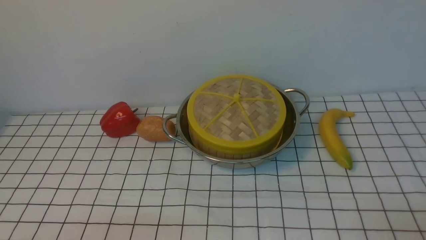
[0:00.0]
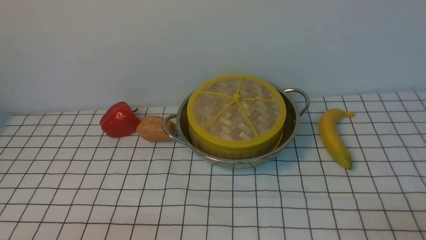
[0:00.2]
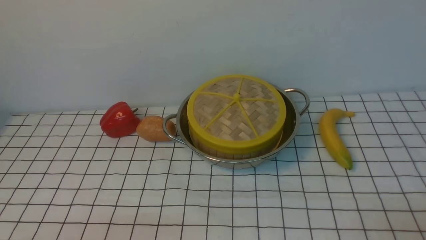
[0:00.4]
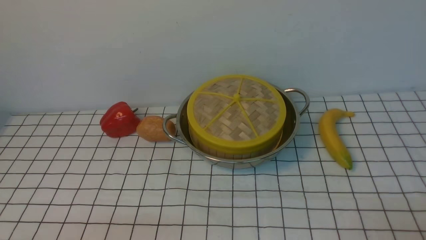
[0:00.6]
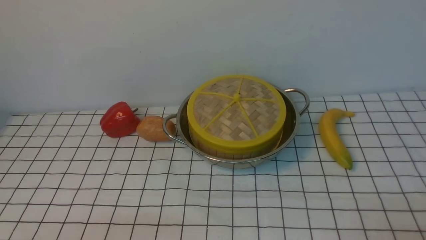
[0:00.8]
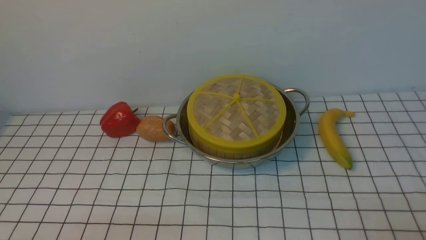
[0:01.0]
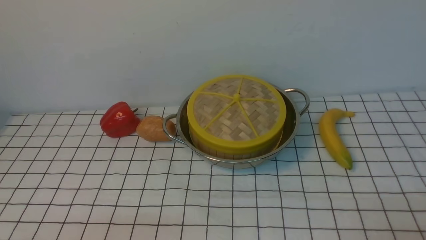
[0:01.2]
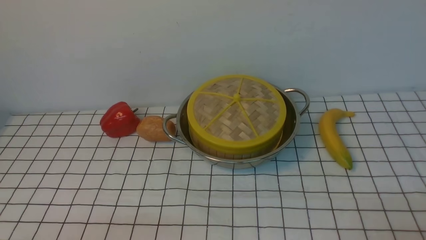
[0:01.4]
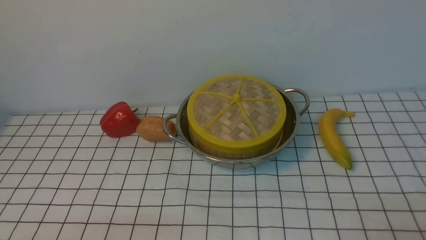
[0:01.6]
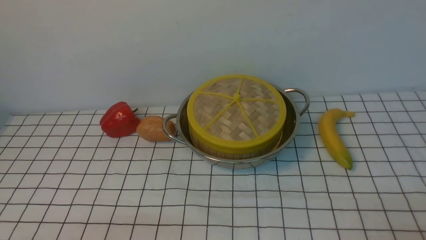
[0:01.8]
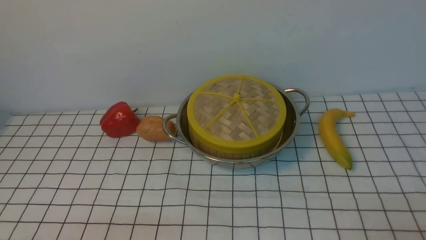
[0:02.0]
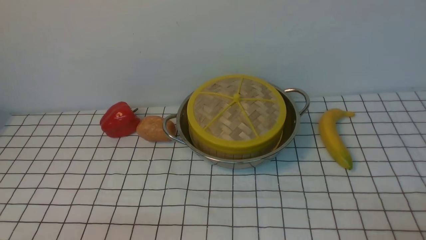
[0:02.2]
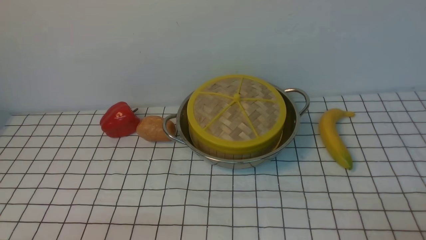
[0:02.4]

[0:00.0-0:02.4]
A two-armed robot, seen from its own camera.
Task of the whole recording: place the steamer in the pot on the white tablecloth, and put the lid on the steamer.
0:01.2 to 0:02.4: Both grippers stay put.

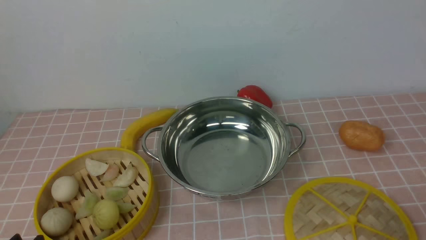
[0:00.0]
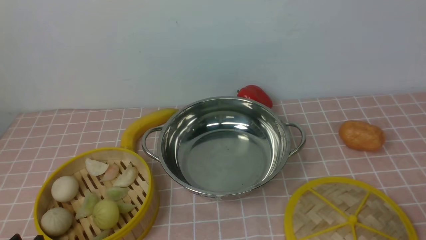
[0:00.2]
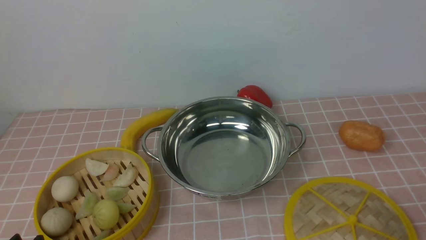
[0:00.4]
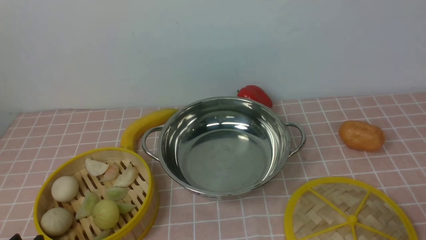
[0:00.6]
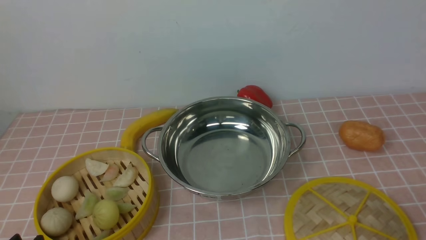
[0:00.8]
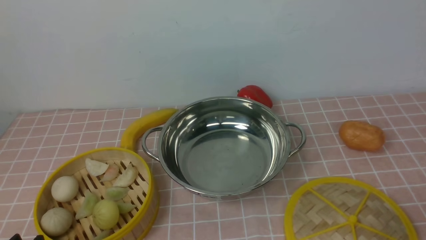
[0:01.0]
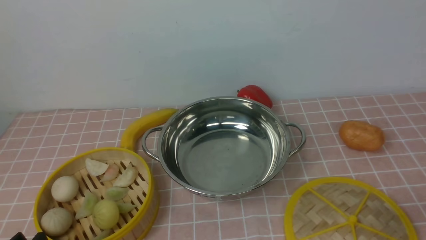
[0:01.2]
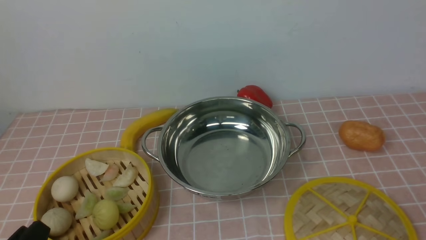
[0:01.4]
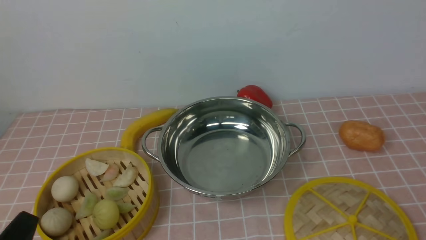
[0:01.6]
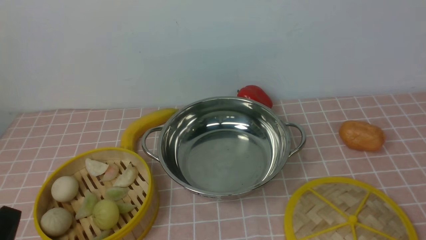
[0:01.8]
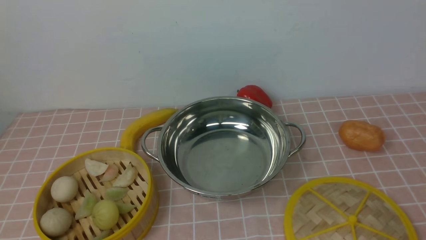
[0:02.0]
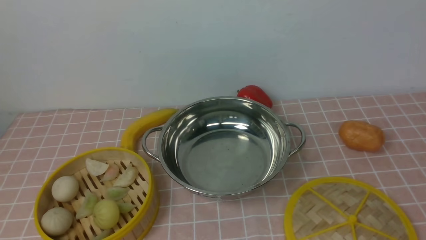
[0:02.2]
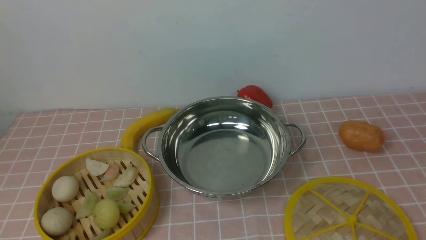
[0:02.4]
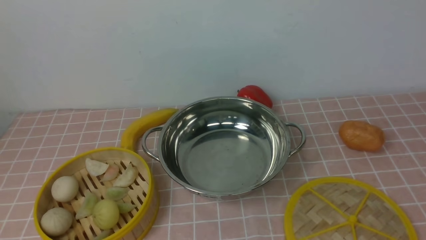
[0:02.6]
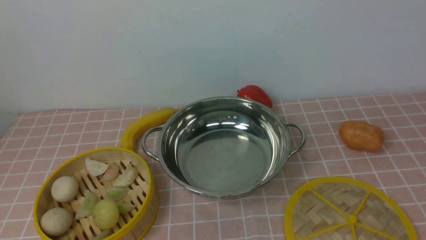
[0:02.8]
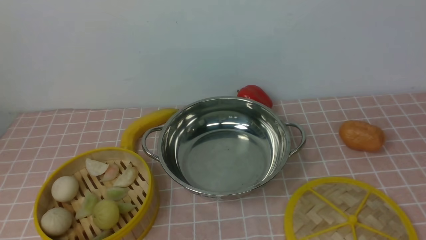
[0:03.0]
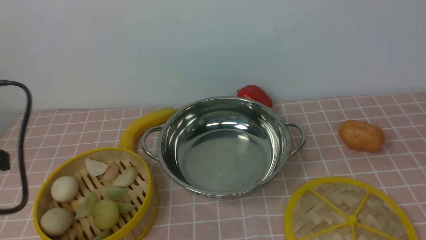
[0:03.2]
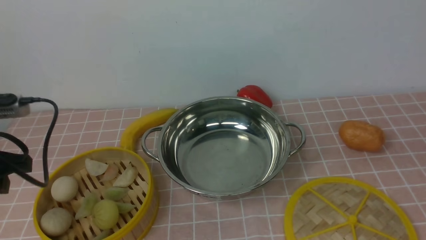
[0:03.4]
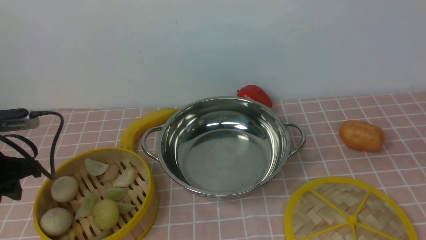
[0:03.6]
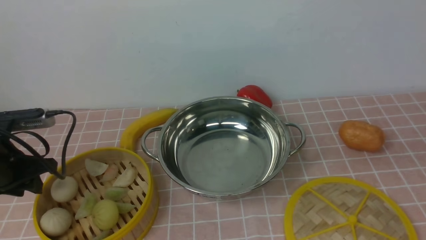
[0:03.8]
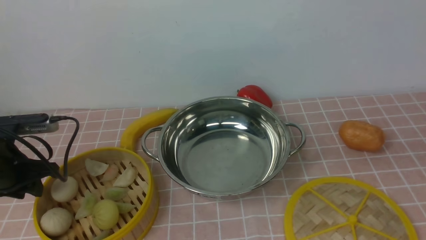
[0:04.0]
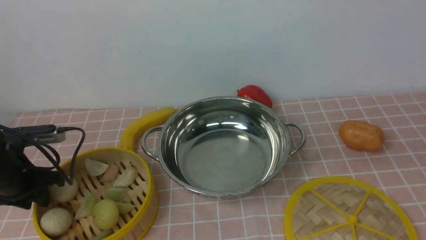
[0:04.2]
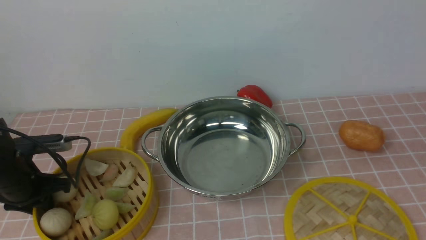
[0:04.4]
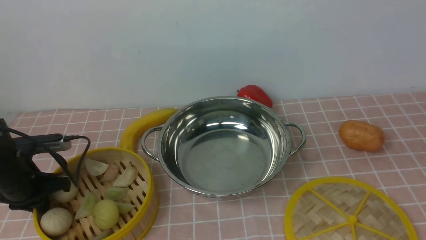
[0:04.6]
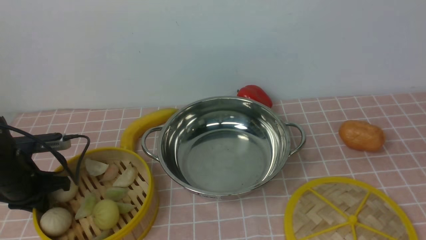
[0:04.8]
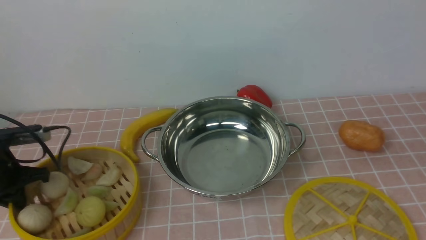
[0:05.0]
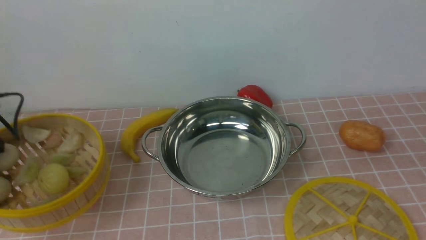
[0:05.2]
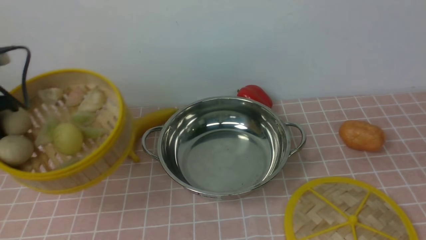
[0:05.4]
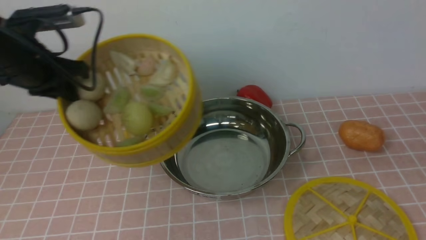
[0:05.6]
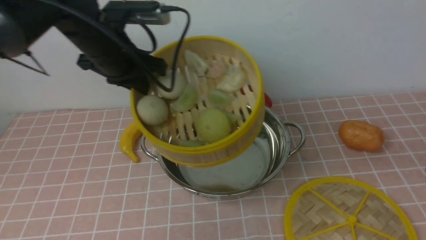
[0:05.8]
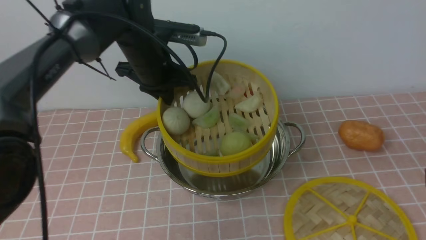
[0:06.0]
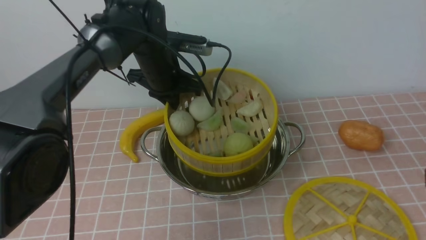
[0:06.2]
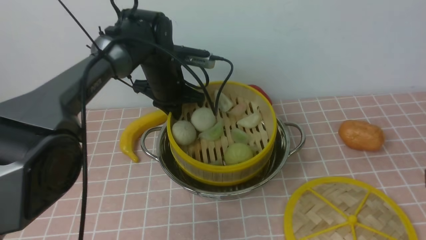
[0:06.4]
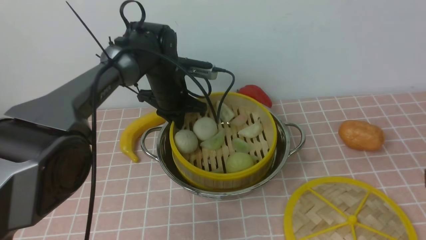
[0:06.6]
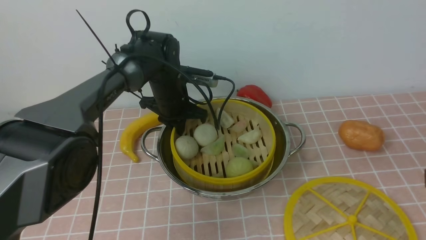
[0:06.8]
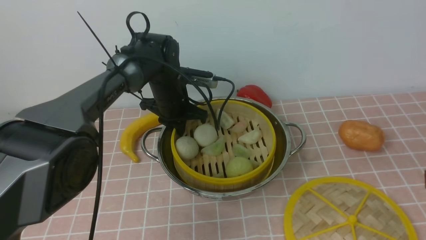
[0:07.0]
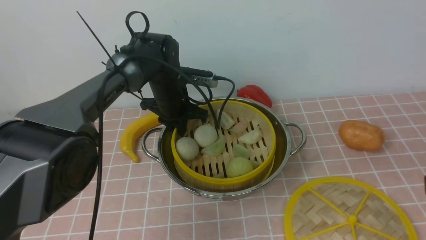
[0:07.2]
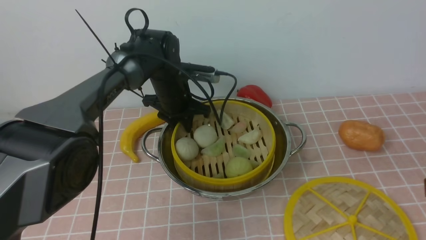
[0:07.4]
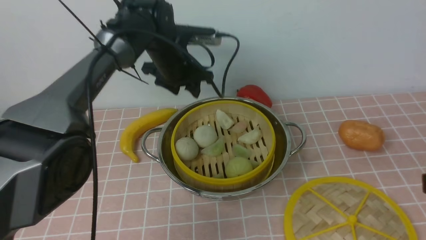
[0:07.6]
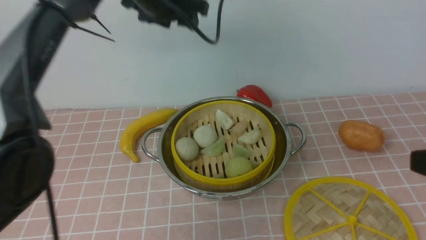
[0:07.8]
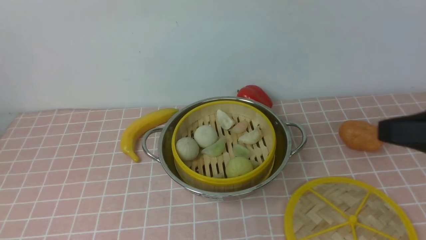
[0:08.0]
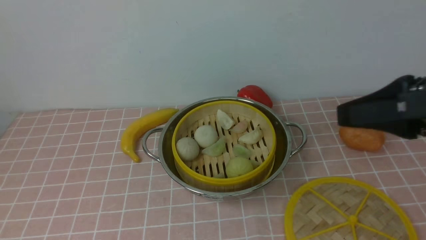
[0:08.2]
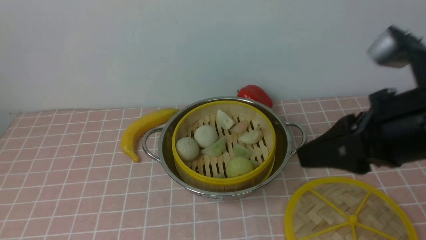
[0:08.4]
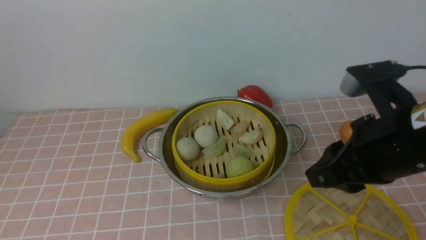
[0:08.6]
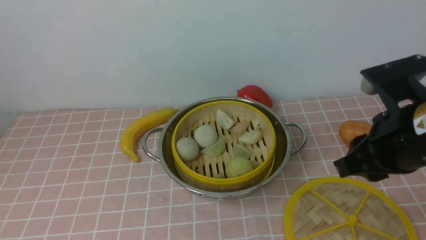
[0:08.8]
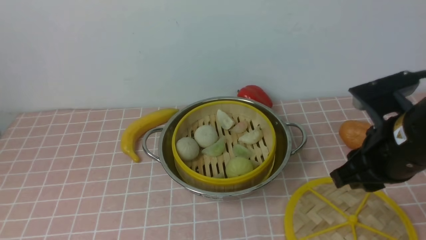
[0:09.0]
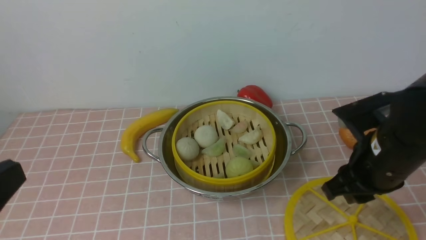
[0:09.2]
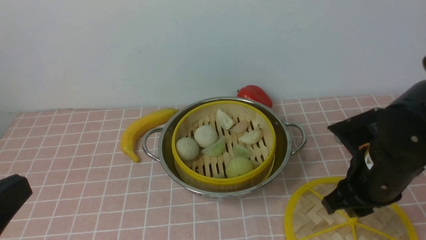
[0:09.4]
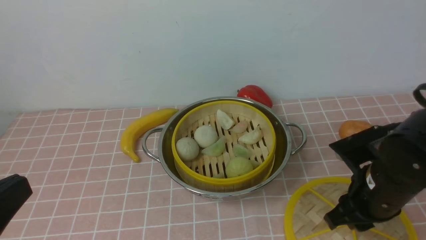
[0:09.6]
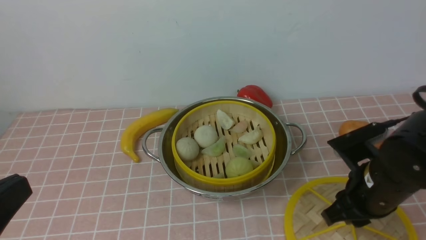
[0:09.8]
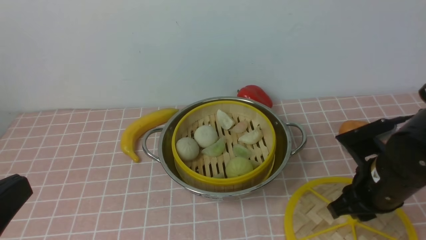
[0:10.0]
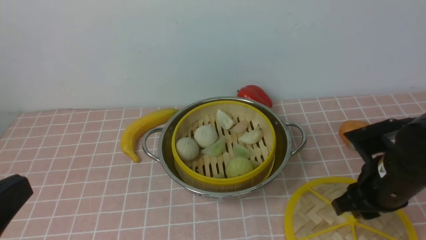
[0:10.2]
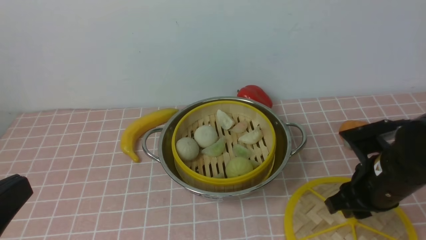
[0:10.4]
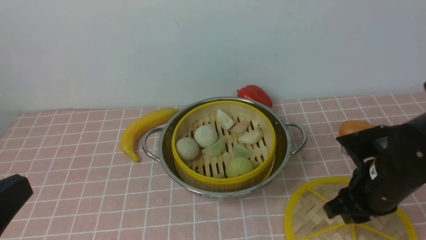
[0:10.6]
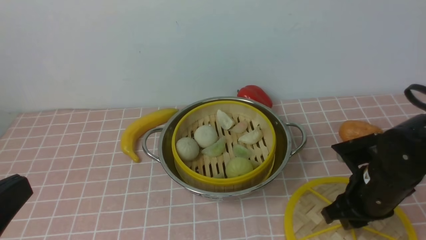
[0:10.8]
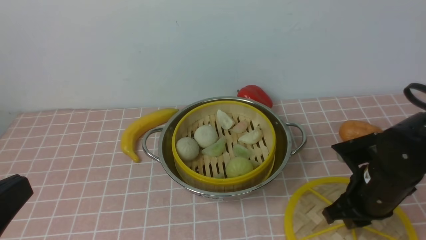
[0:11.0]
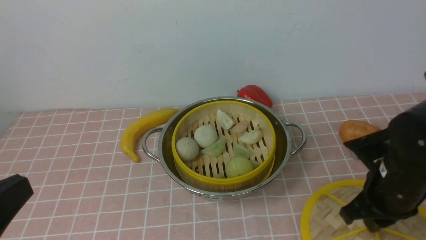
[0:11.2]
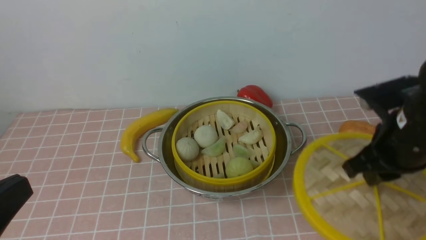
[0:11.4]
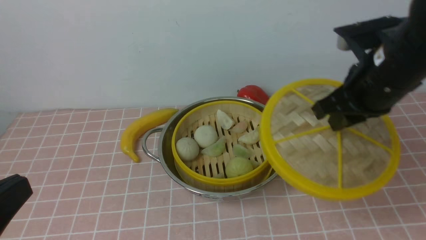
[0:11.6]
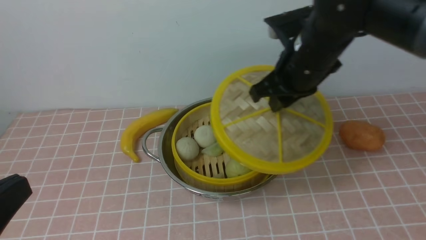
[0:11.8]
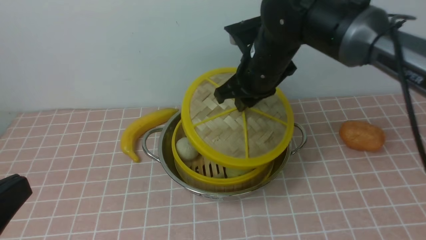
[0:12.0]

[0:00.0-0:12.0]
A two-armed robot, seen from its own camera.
Task of the whole recording: place the steamer in the pot on the pink tablecloth, and put the lid on the steamer.
Step, 0:00.0 to 0:05.0: use the left arm to lift the steamer closest to it.
Step, 0:05.2 to 0:07.4: use the left arm to put the steamer into the iron steamer pot in the middle.
Step, 0:07.6 to 0:11.2: use the right arm to lift the lid of the steamer.
0:01.6 to 0:03.0: The left gripper is displaced upward by approximately 20 cm.
0:03.0 to 0:04.4: The left gripper shifts roughly 30 cm downward and forward.
0:04.4 to 0:06.0: The left gripper shifts roughly 25 cm to the right, upward and forward, and closes.
0:06.0 to 0:07.6: The left gripper moves forward and downward, about 10 cm, and opens.
0:07.6 to 0:09.0: The left gripper goes roughly 50 cm backward and upward, and closes up. The right gripper heads forward and to the left, covering approximately 15 cm.
0:09.0 to 0:10.4: Both grippers move downward, approximately 10 cm.
0:10.4 to 0:12.0: The right gripper travels forward, to the left and upward by approximately 20 cm, and closes up.

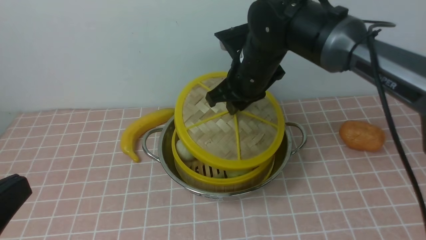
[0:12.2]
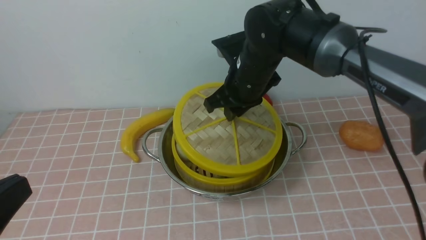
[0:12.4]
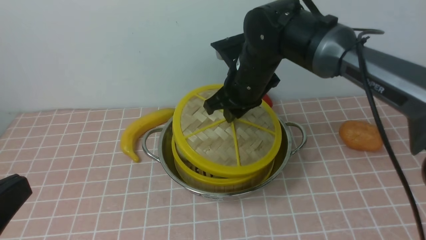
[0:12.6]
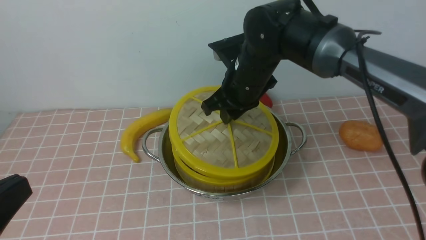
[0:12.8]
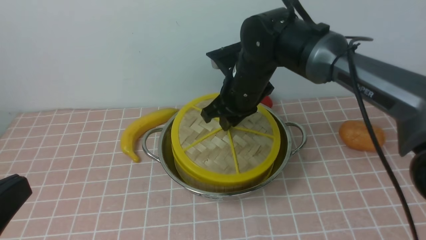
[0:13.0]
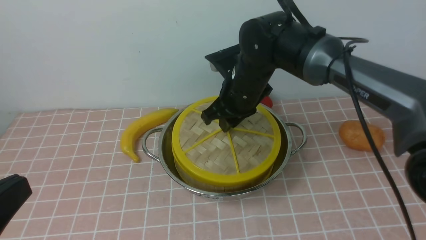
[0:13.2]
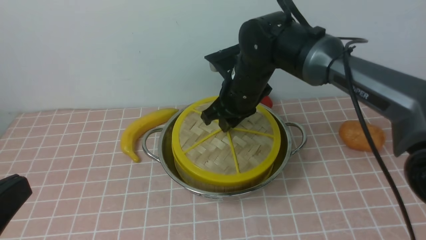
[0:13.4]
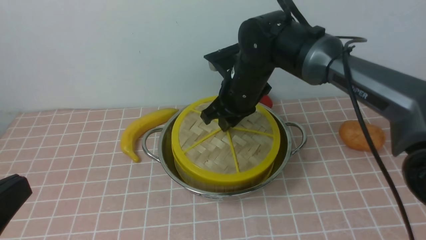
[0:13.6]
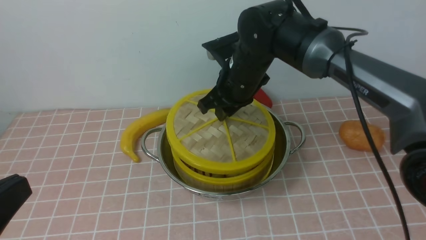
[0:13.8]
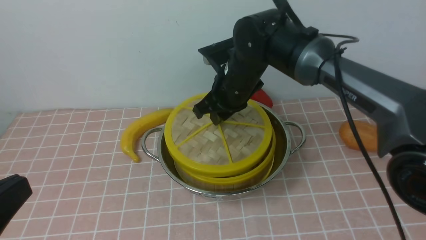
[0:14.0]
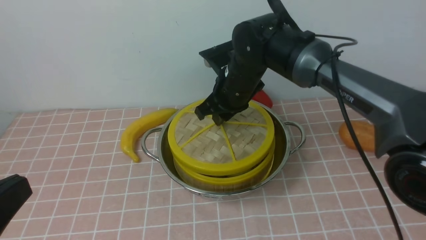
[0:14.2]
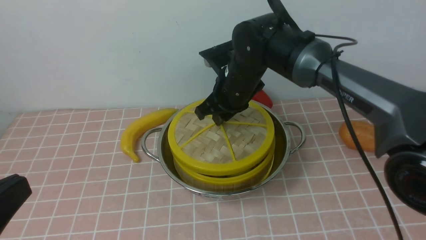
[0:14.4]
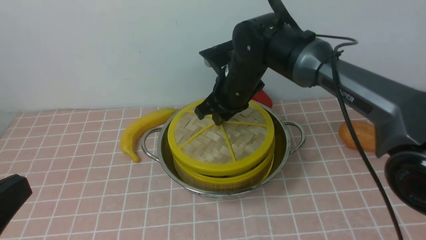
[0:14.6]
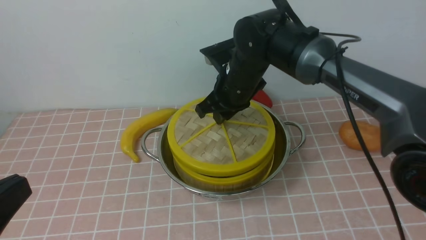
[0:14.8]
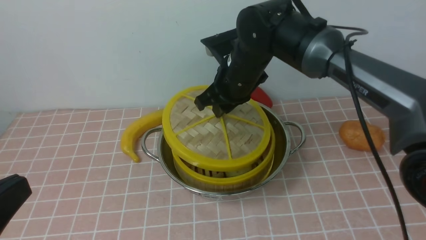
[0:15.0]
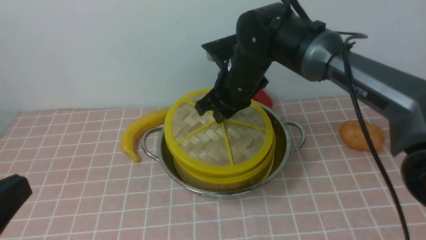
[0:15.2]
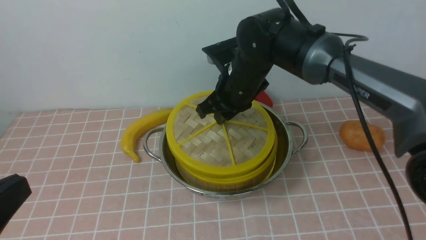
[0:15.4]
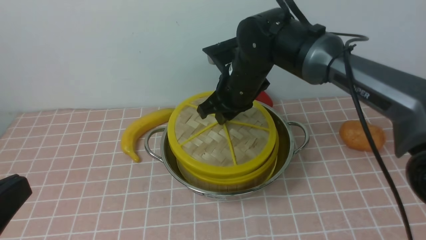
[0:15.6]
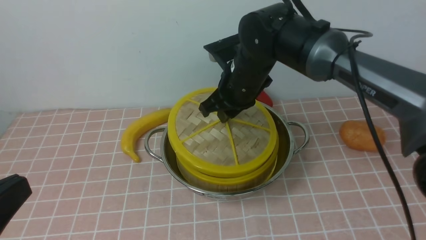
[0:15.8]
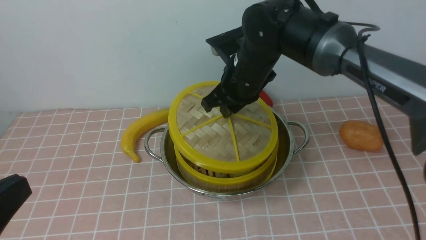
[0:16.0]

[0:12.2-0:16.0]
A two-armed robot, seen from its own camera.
Task of the whole recording: place the steamer in the pot on the pink tablecloth, and put the lid on the steamer.
0:12.2 to 0:13.4: The grippers make only small movements.
0:13.4 to 0:16.0: The grippers move only a little.
